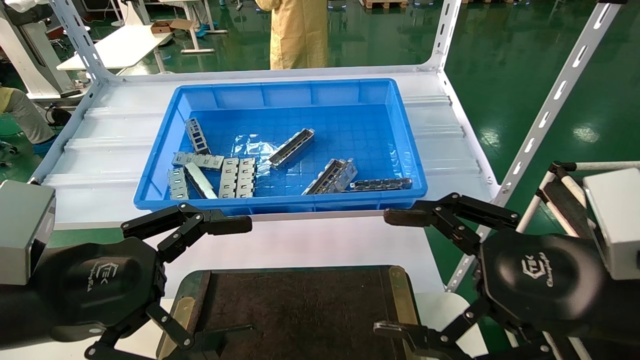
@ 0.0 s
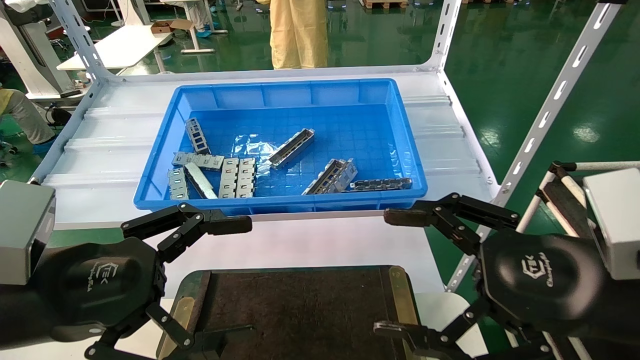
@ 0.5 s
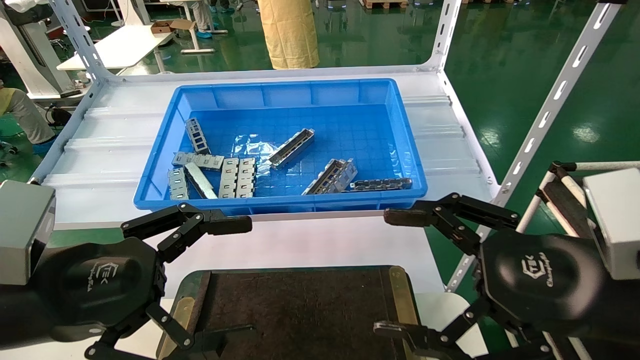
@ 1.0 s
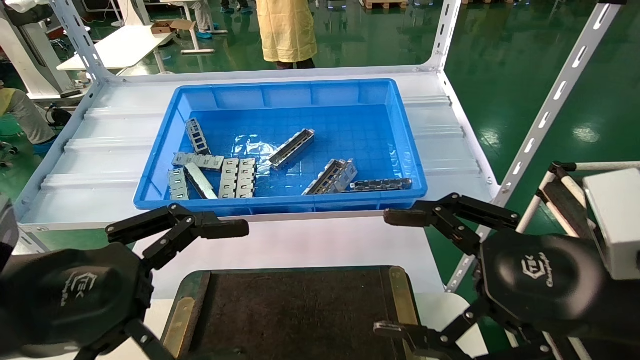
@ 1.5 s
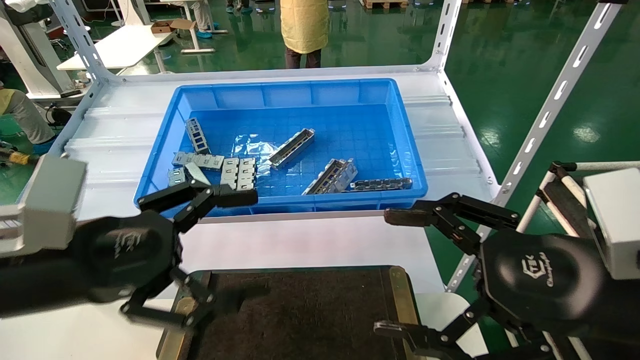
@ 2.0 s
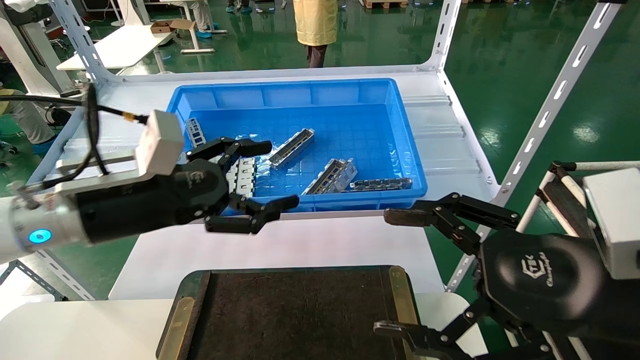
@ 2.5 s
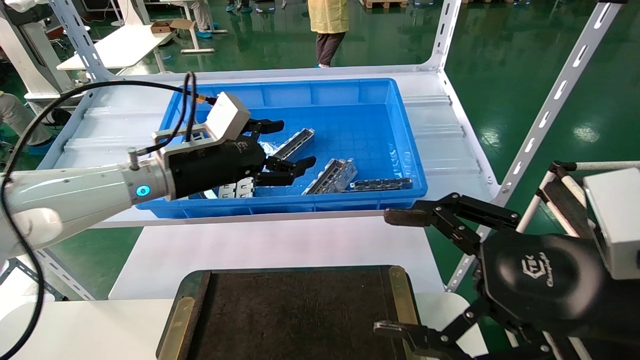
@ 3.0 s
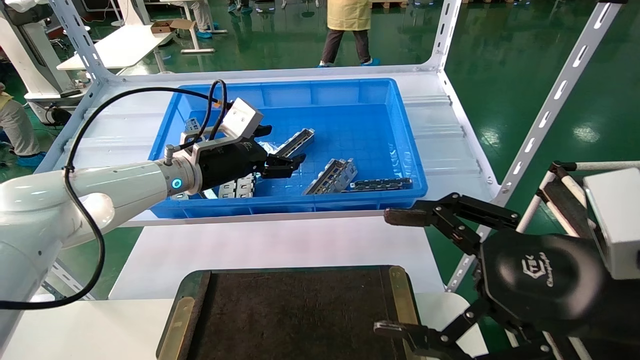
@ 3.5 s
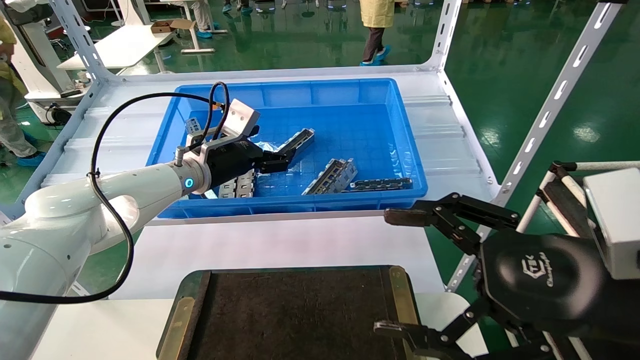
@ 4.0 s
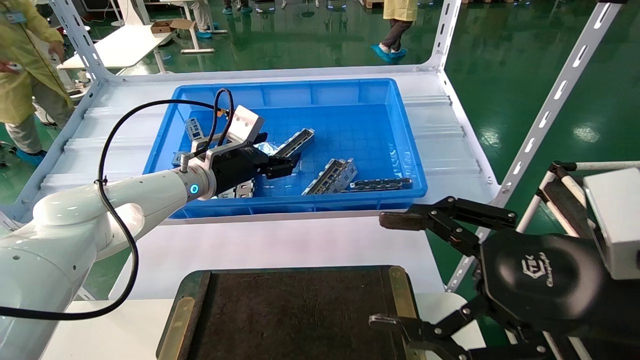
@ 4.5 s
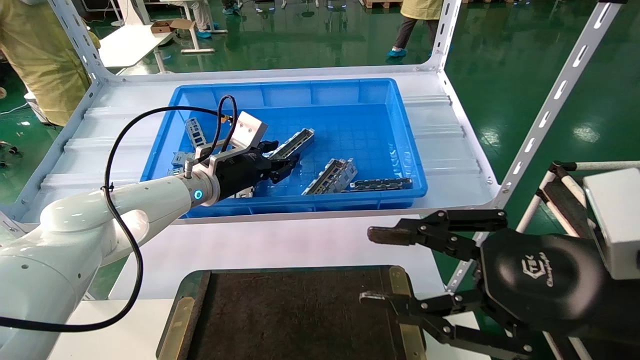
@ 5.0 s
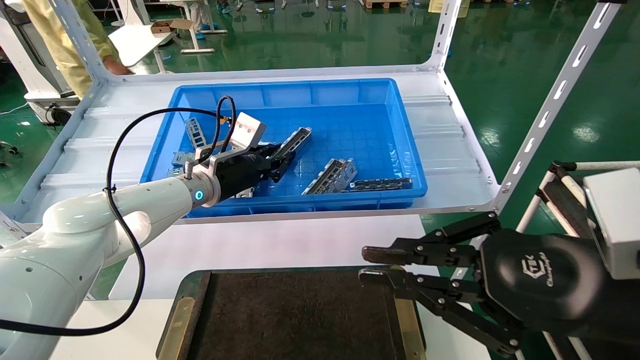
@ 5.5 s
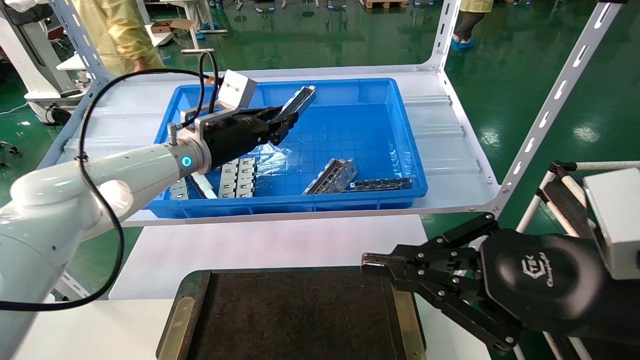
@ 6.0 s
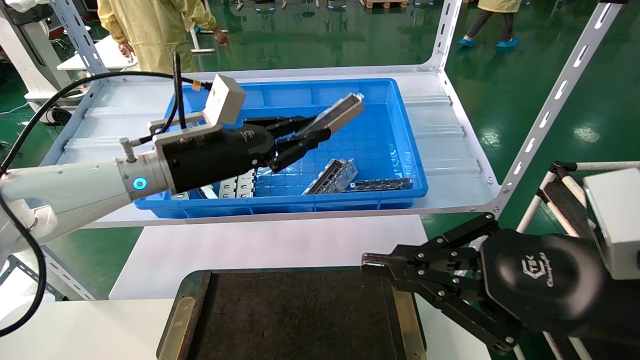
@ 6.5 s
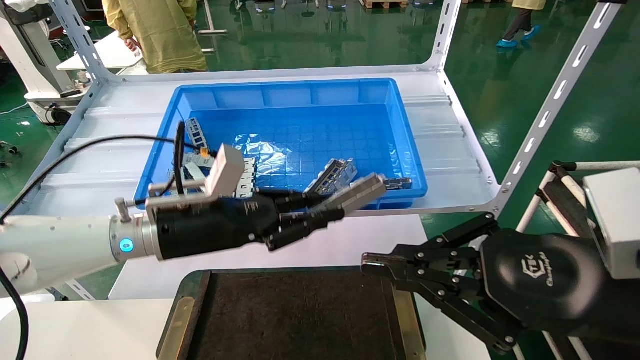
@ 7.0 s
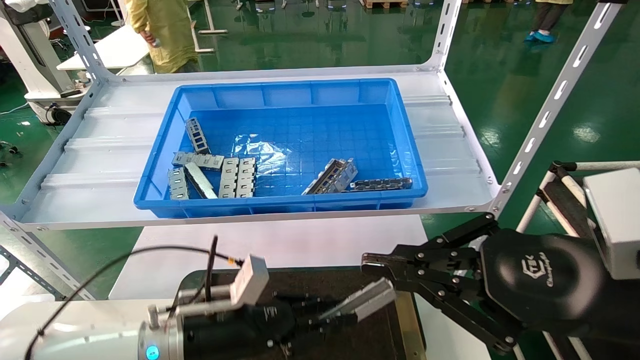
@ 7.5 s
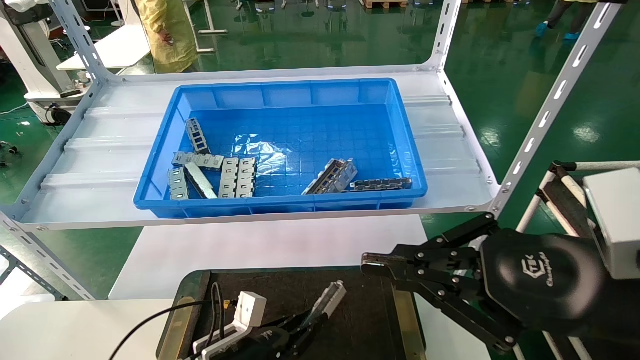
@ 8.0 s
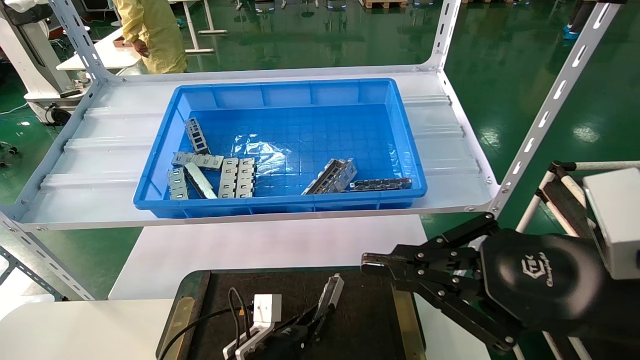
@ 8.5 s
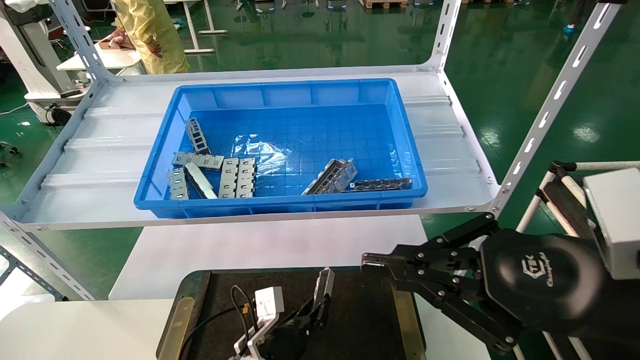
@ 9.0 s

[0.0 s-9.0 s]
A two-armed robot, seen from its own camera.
Task of the whole recording: Grasp the part with one hand and place it on the black container.
Step, 2.0 to 6.0 s: Pick up the front USB bracket from the feeding area.
0.0 to 2.0 s: There are only small adjustments of the grippers.
2.0 to 4.5 s: The left gripper heads forward, covering roughly 25 cm.
4.5 to 7.0 s: The left gripper travels backward by some 15 cm, and closes its fingers. Meanwhile the right gripper closes.
7.0 to 9.0 s: The left gripper is displaced downward by about 25 cm.

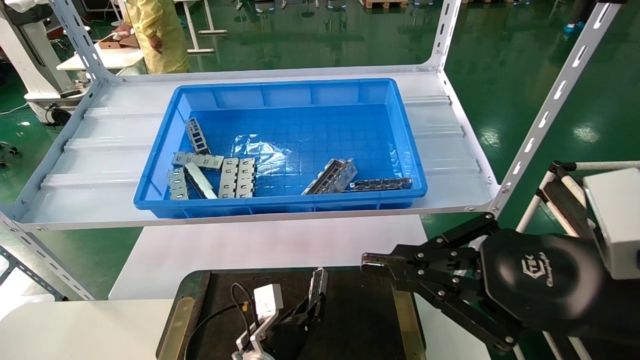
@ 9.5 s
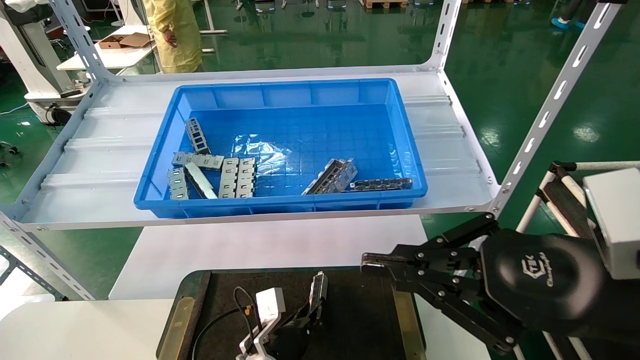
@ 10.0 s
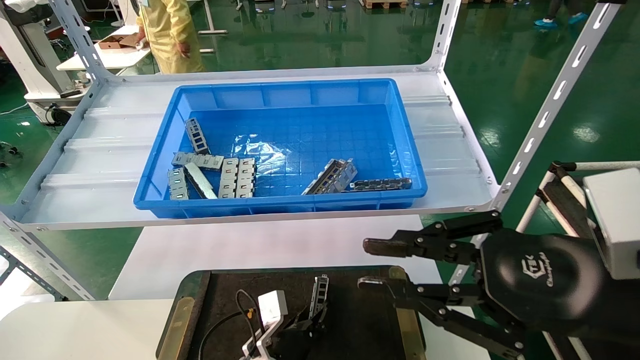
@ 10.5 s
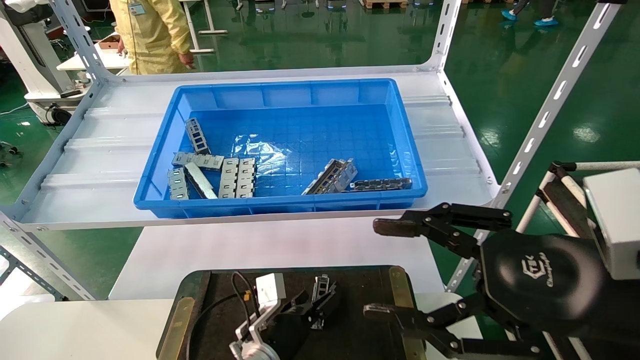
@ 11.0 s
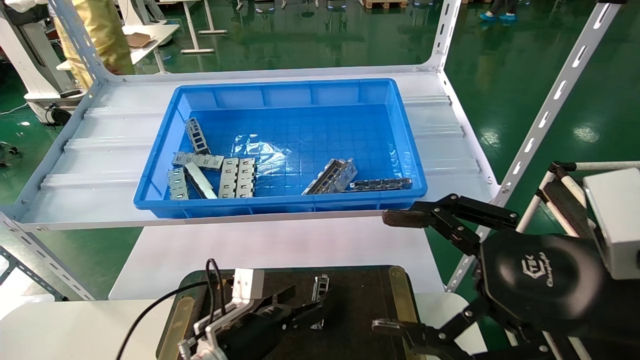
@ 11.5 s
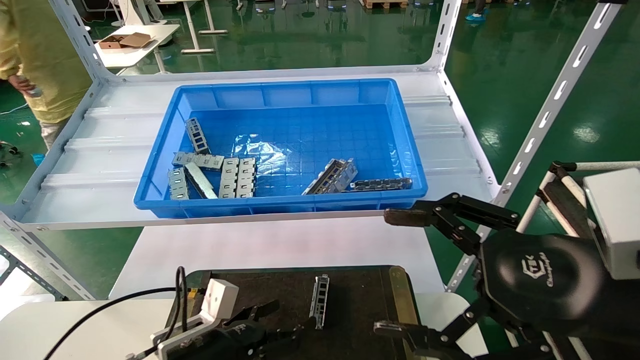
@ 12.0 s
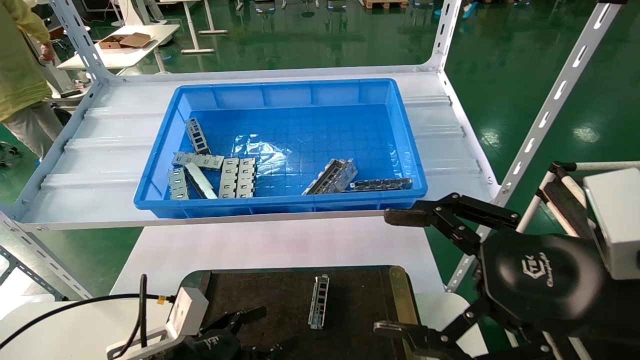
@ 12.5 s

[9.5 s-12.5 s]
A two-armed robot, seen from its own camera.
Task of the whole recording: Grasp the part with one hand and place it on the black container.
9.5 to 11.0 s: The left gripper opens its fingers, while the right gripper opens.
11.0 to 12.5 s: The left gripper travels to the left, backward and upward by some 20 cm, and opens its fingers; the right gripper opens its fingers.

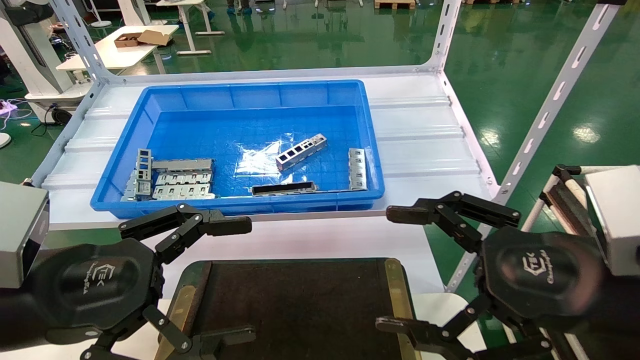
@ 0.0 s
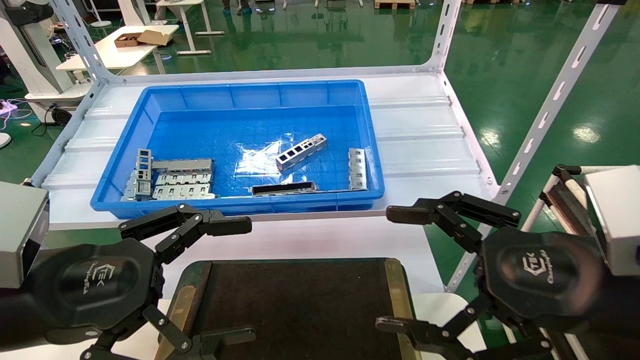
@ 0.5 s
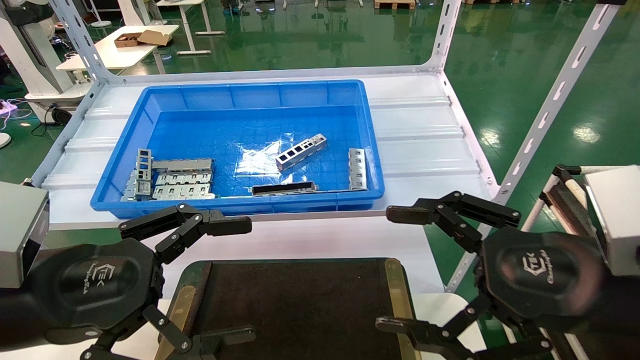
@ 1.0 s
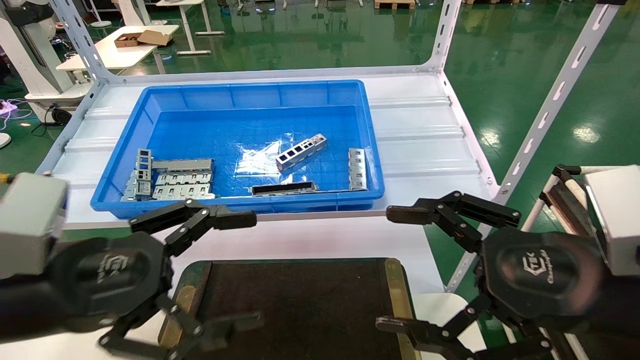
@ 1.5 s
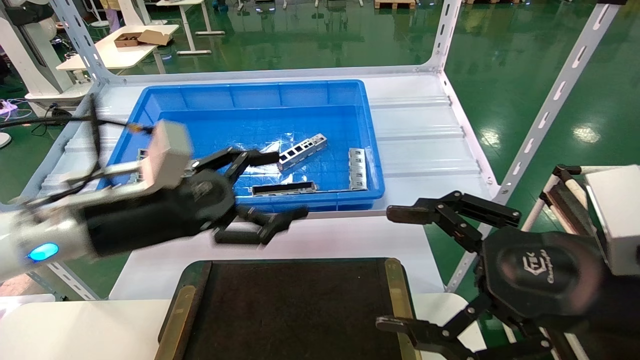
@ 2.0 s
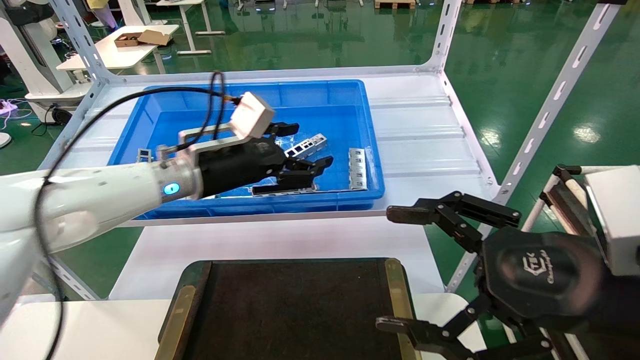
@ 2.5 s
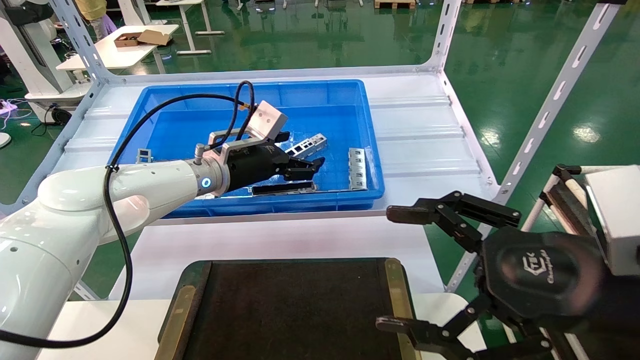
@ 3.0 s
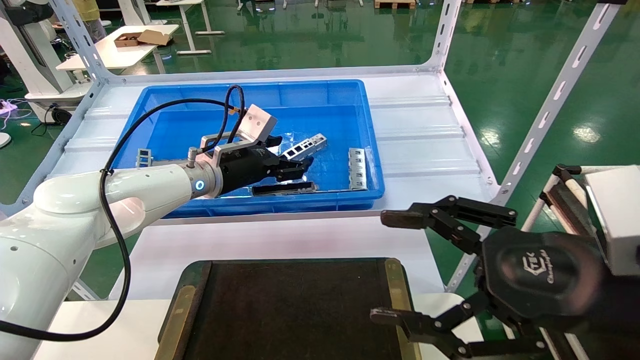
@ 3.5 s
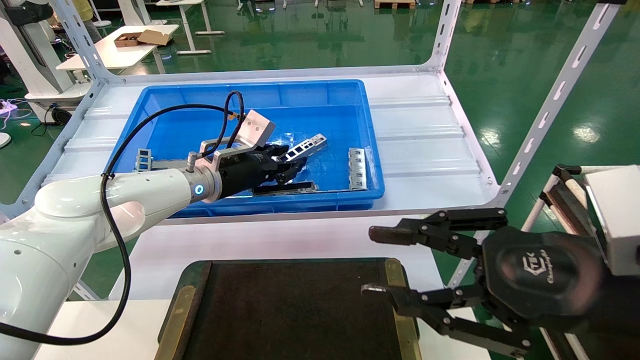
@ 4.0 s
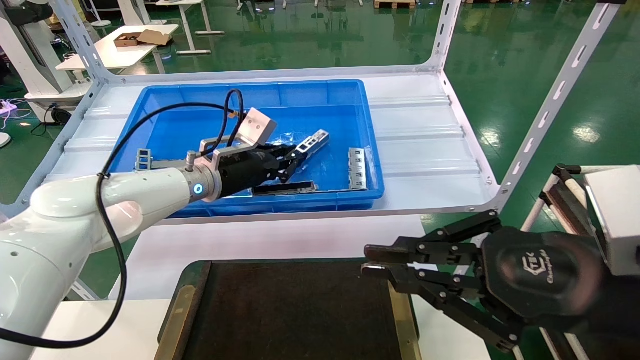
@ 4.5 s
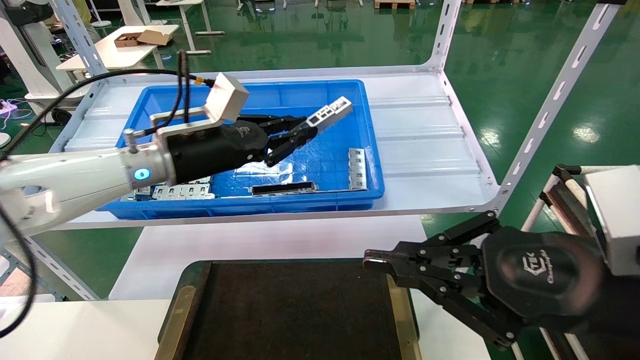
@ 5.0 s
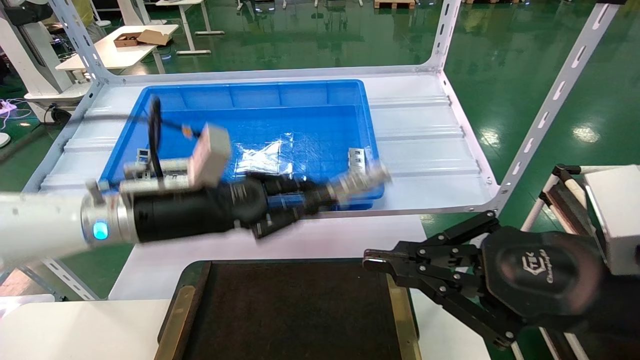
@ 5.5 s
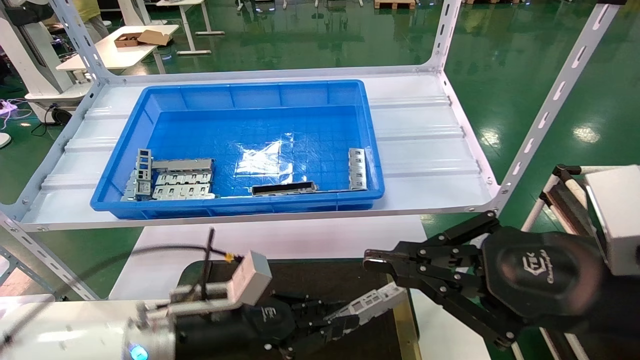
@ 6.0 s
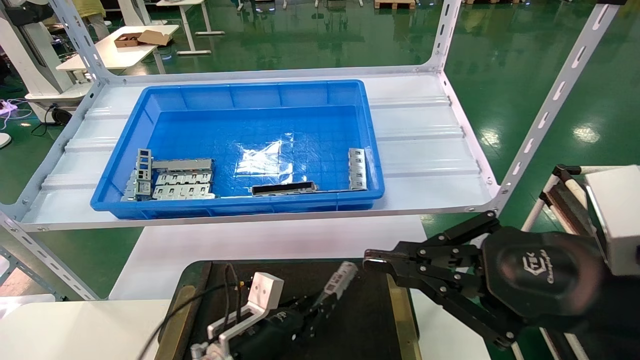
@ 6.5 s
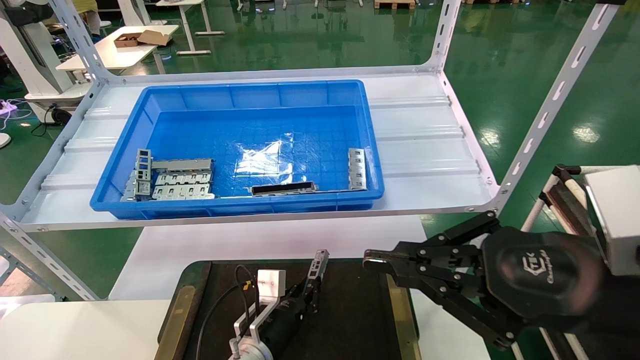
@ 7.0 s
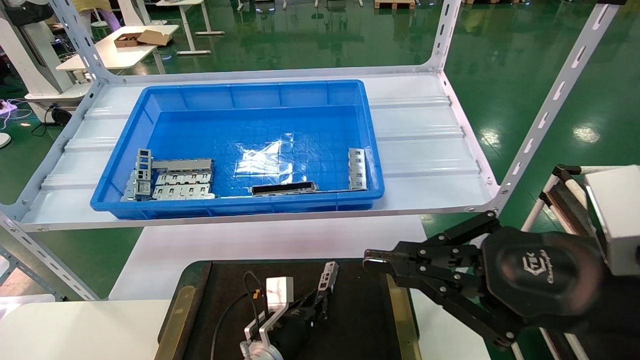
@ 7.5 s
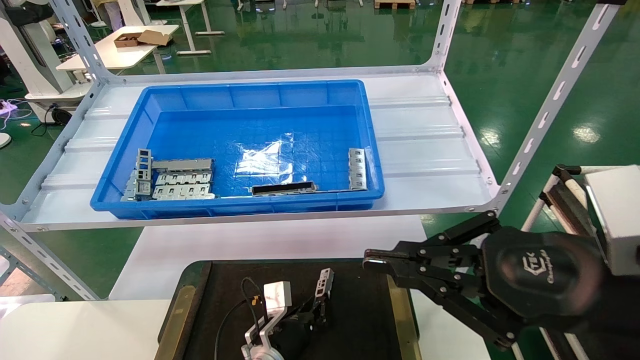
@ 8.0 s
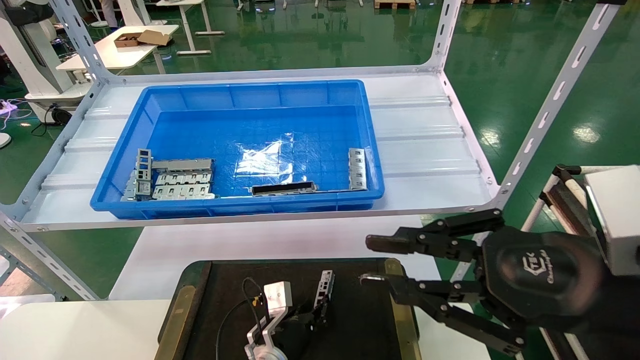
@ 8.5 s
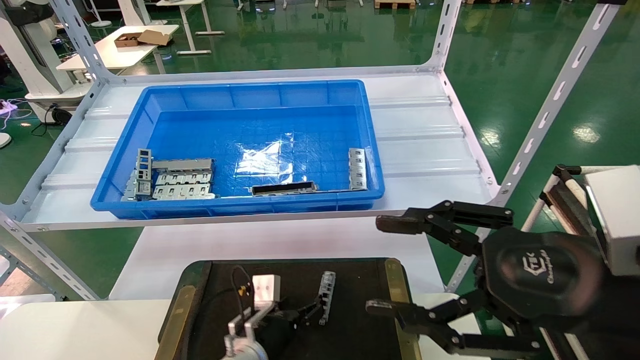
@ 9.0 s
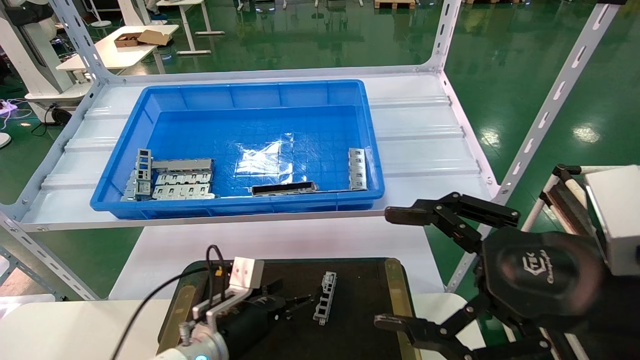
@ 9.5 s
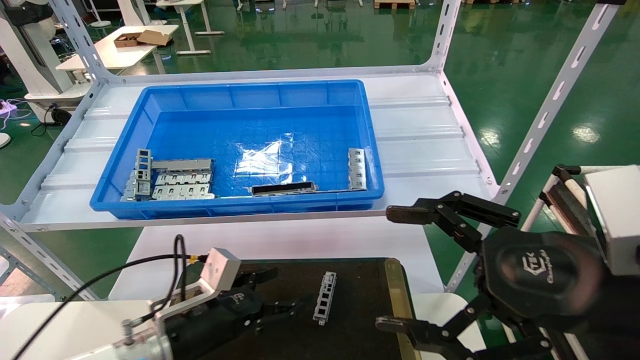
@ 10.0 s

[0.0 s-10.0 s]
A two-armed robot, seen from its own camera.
Task of the whole recording: Grasp the part with one hand and place it on the black container.
Step, 2.0 to 4.5 s: Pick up the front USB bracket from the feeding area.
Step, 5.0 to 8.5 s: Place the front USB bracket into the box.
0.0 to 2.0 s: The left gripper shifts roughly 10 cm forward.
2.0 to 4.0 s: The right gripper closes up. The left gripper heads forward, covering some 20 cm, and closes.
4.0 to 6.0 s: The right gripper closes. The left gripper is displaced backward and downward by roughly 25 cm, and closes up.
6.0 to 8.0 s: The left gripper shifts some 20 cm downward, to the right and forward.
8.0 to 10.0 s: The right gripper opens; the left gripper travels upward, to the left and backward by roughly 20 cm, and opens up.
